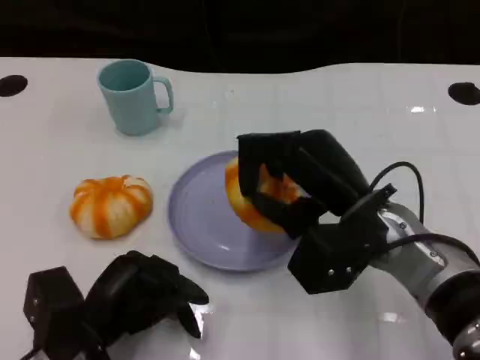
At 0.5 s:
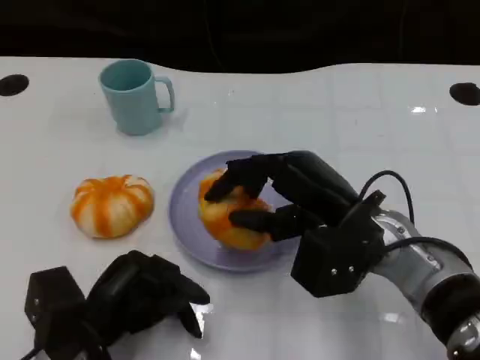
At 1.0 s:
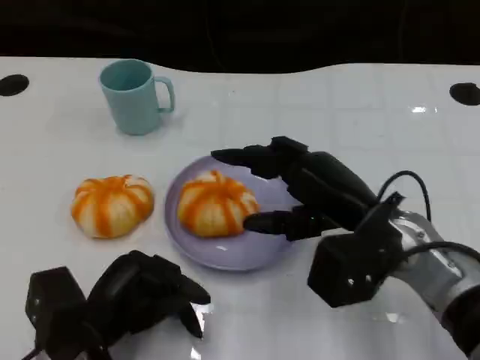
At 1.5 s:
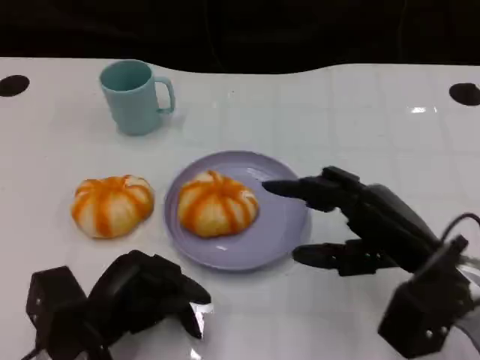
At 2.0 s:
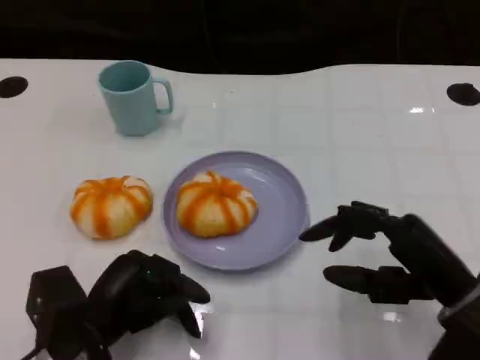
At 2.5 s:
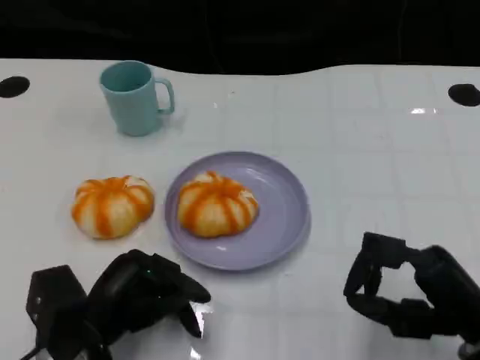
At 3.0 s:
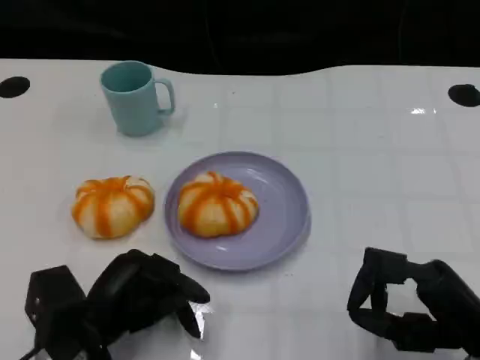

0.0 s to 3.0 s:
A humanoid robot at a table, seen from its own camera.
Task of the whole recording: Grasp the bread from the table and place it into the plate.
0.0 to 1.5 s: The right hand travels to the right by about 5 cm.
1.5 to 3.0 s: The right hand is displaced backward by some 5 cm.

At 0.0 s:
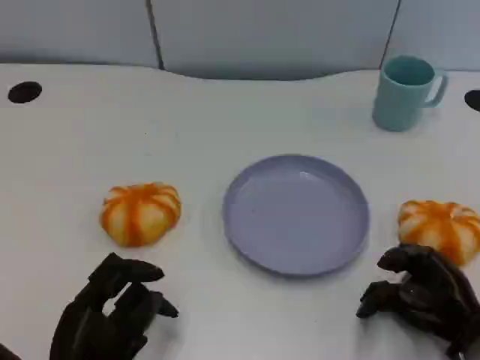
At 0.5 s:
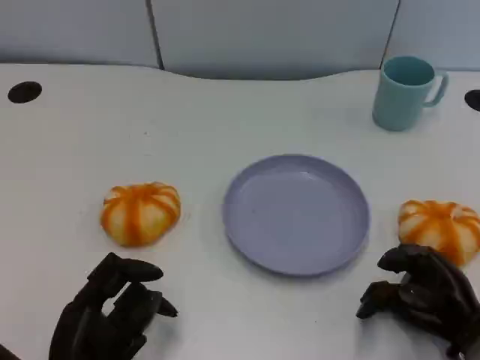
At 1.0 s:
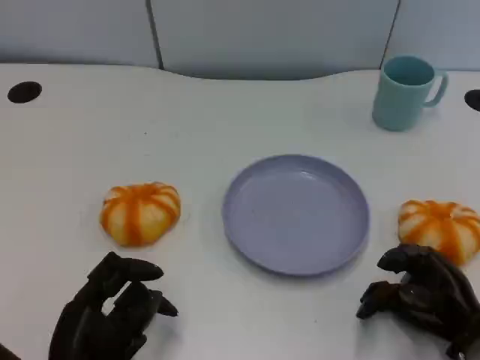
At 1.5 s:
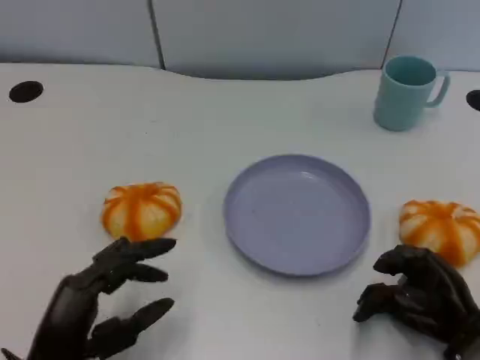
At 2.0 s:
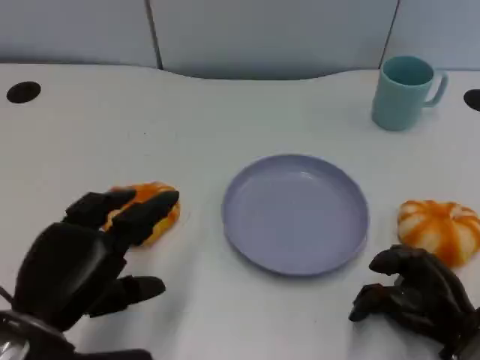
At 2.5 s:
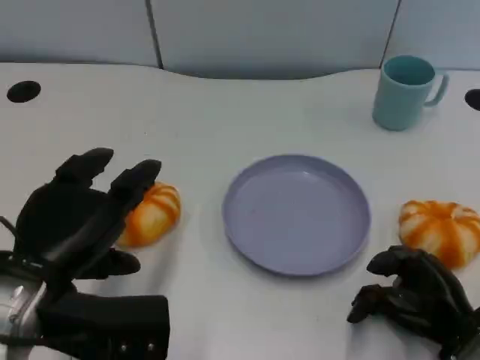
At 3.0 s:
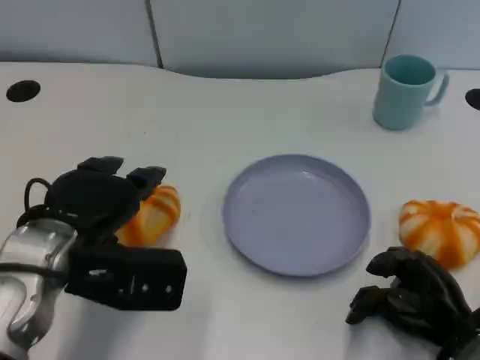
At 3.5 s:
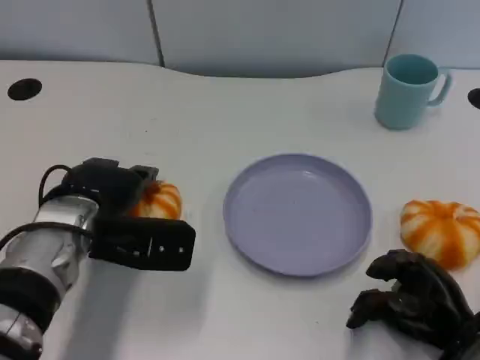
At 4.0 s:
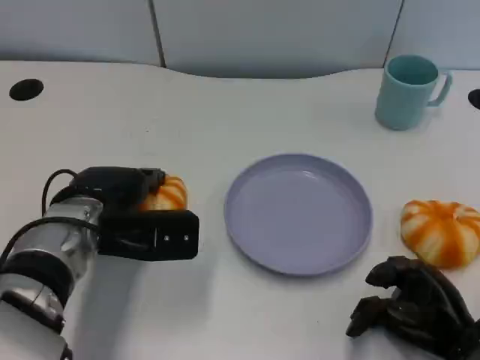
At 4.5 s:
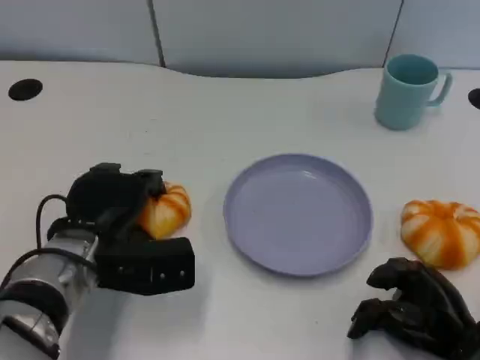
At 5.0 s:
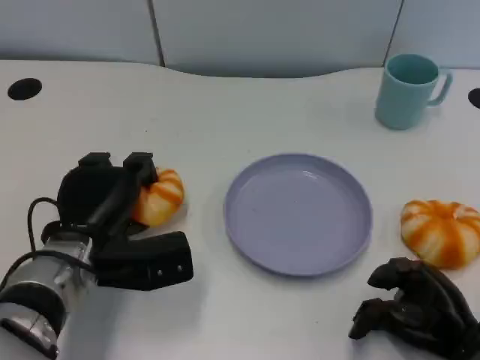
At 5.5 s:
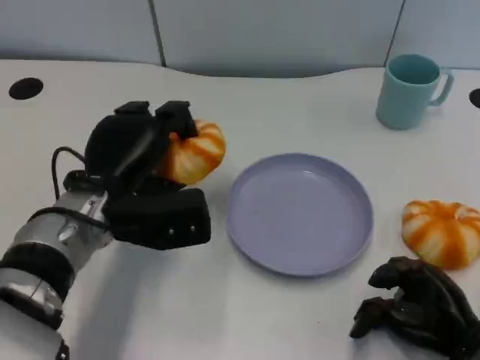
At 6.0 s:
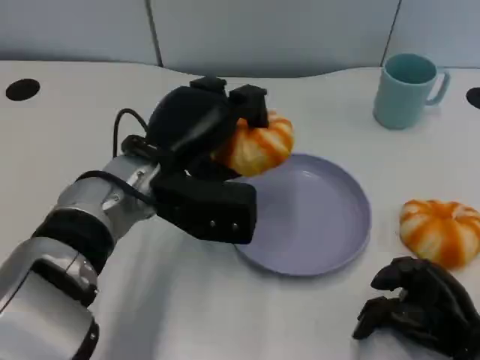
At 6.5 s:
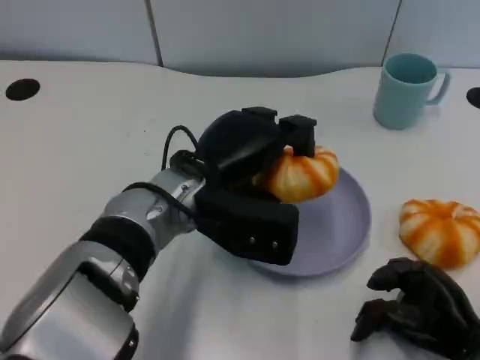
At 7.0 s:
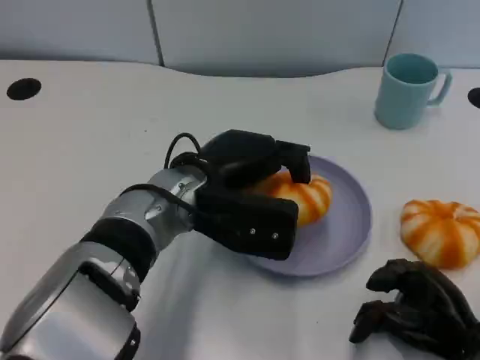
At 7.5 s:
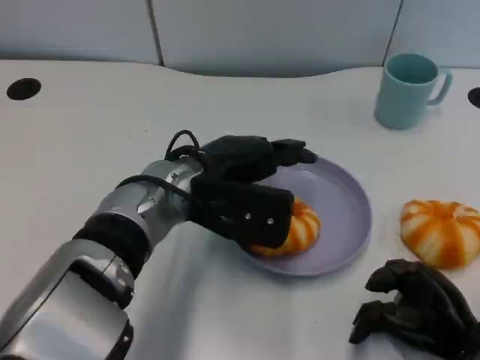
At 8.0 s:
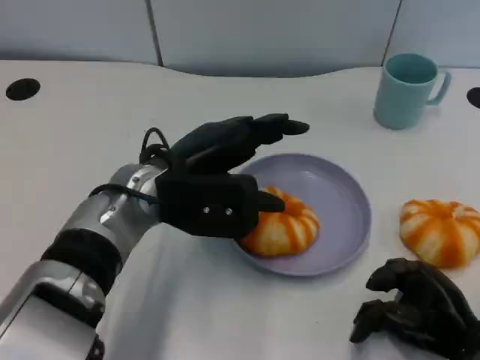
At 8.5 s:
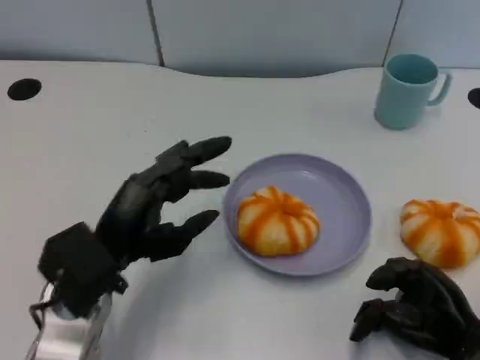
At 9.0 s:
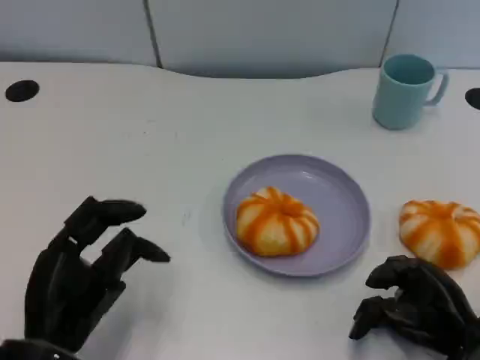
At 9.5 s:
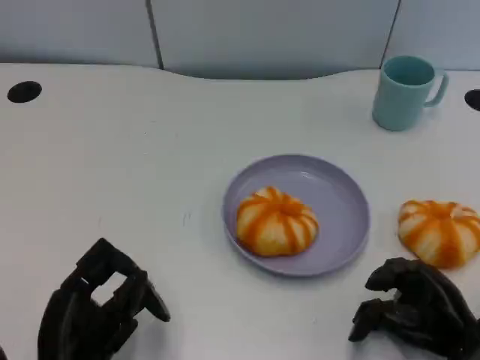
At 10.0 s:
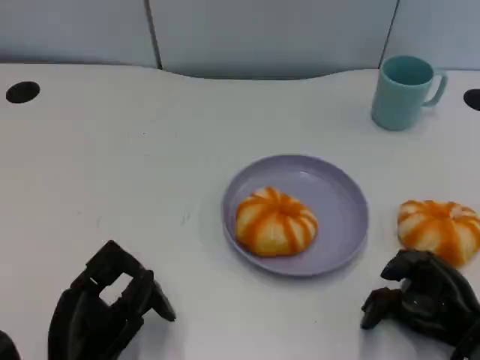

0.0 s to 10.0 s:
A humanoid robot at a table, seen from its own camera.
Task of the whole recording: Grasp the bread from the table and place it into the plate.
0.0 to 2.0 s: The left hand goes about 10 cm upward.
2.0 to 4.0 s: The left hand travels forward by approximately 15 cm.
4.0 to 6.0 s: The left hand shifts some 10 cm to the right and upward.
8.0 to 10.0 s: The left hand is displaced backward, downward and to the left by about 20 cm.

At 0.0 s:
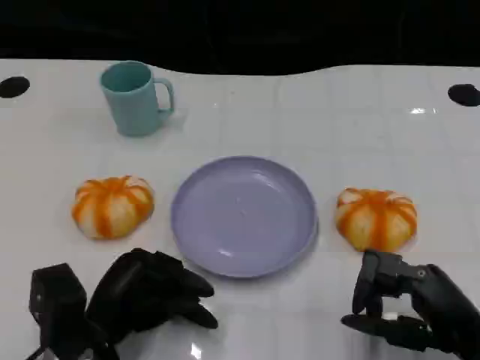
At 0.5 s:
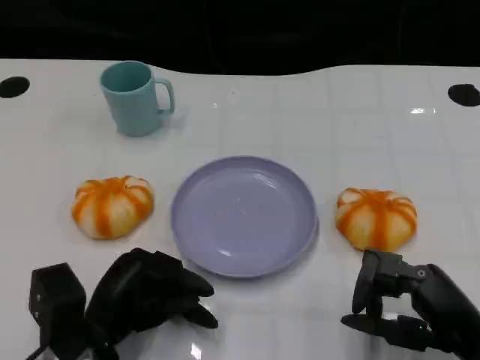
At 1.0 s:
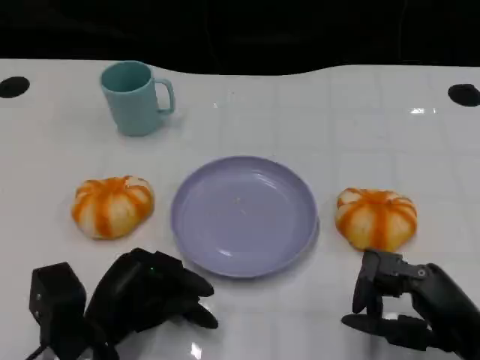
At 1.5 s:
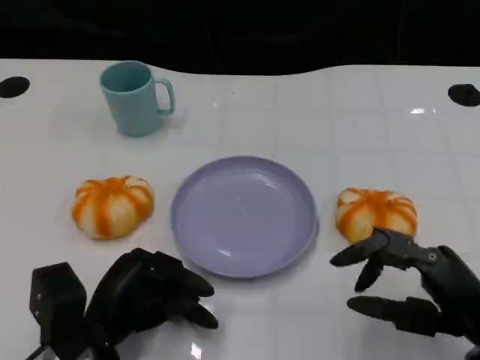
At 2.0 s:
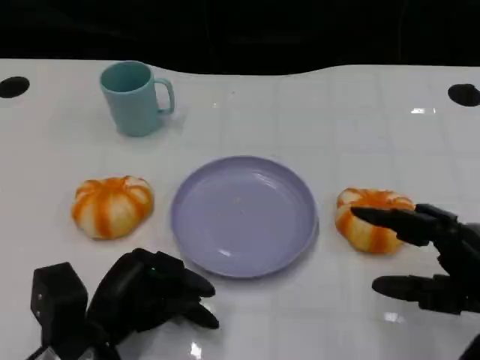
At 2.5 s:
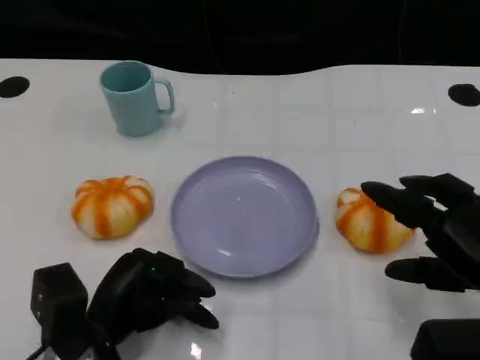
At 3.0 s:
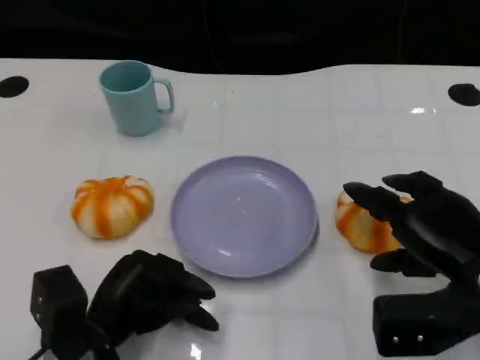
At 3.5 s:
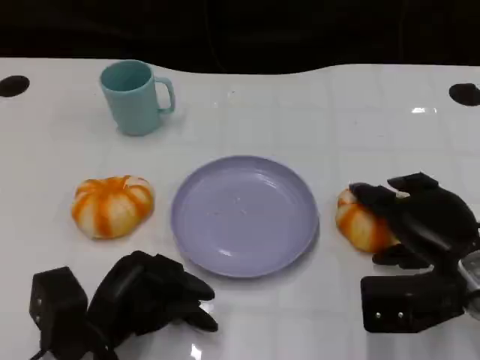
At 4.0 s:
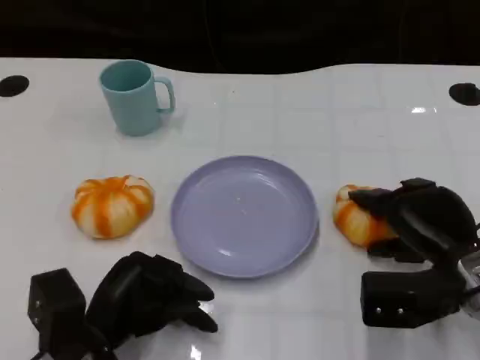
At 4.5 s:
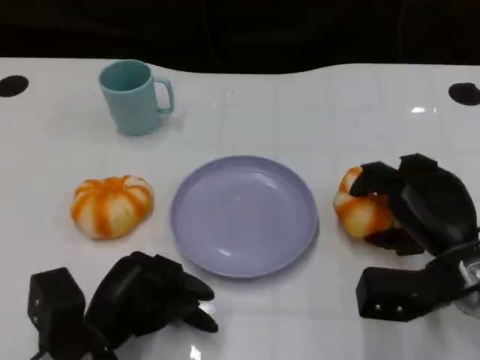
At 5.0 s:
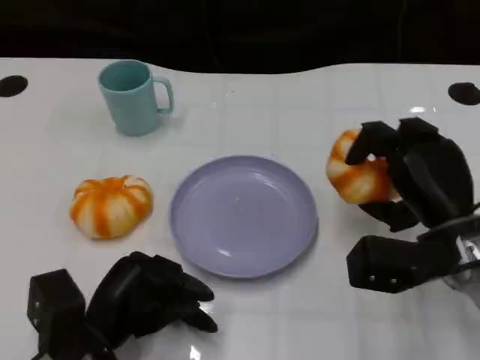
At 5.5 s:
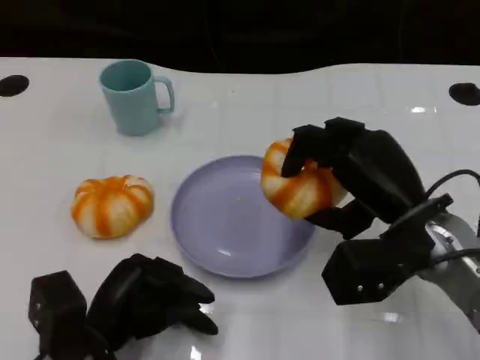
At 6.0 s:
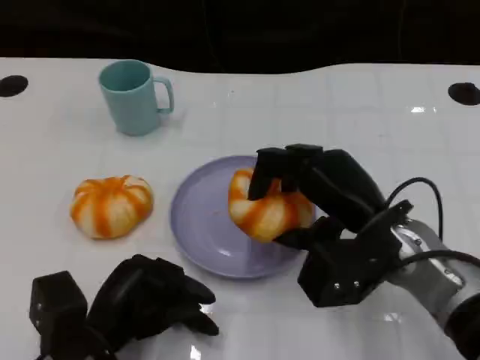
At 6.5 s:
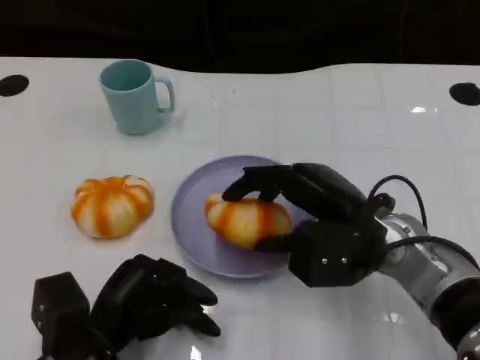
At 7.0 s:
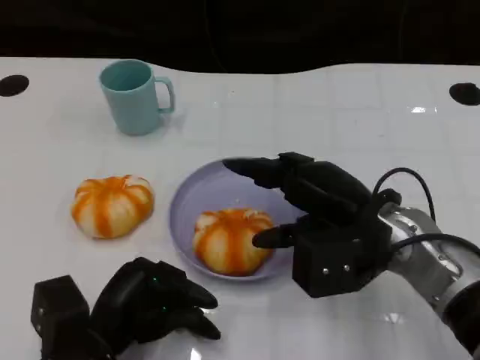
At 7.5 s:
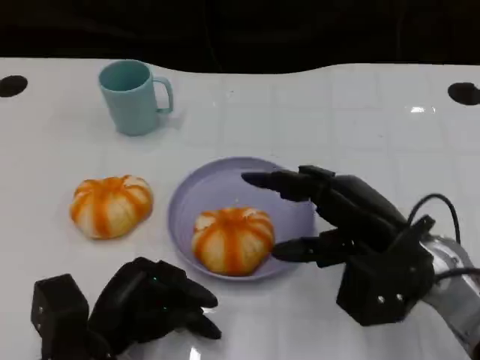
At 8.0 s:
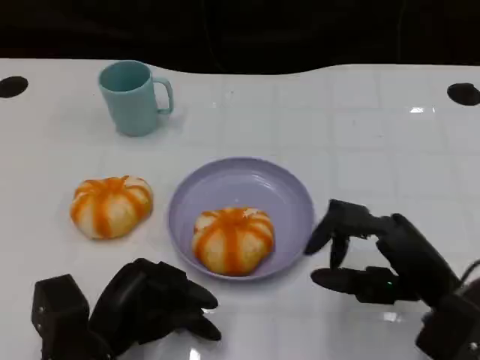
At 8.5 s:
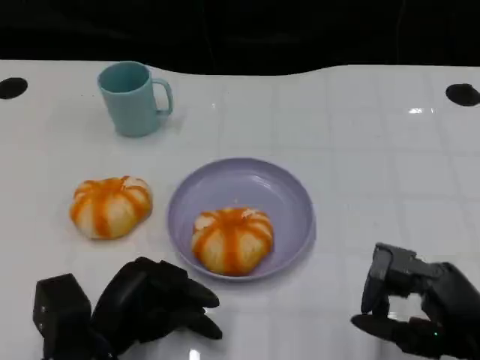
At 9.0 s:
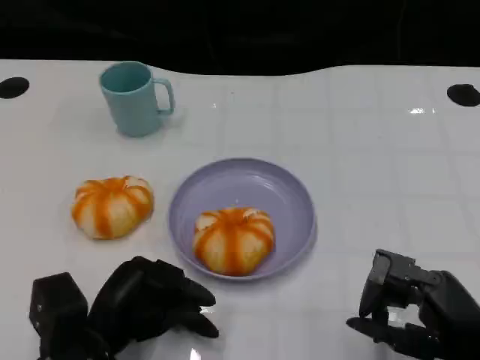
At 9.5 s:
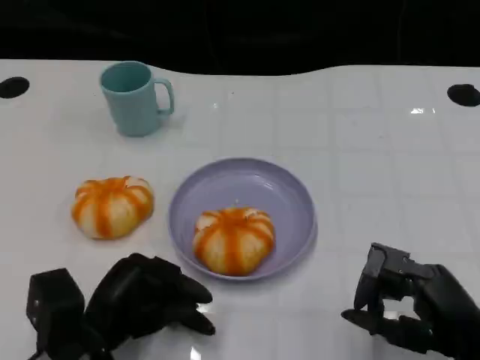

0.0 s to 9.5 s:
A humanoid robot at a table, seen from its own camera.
Task of the whole recording: Grasp the bread from the table and place it into the plate.
0.0 to 2.0 s: The right hand heads upward, covering about 5 cm.
2.0 to 4.0 s: The right hand shifts approximately 10 cm forward.
4.0 to 5.5 s: The right hand shifts approximately 10 cm upward and to the left.
7.5 to 9.5 s: The right hand moves backward and to the right, about 10 cm.

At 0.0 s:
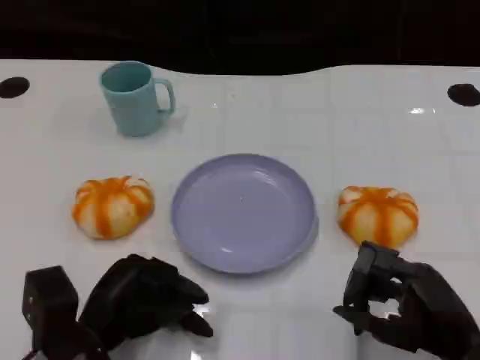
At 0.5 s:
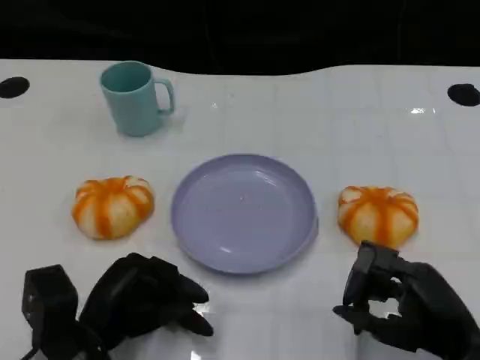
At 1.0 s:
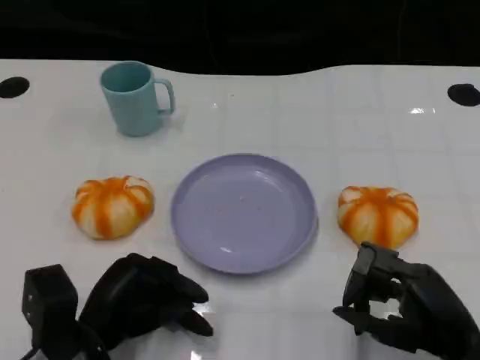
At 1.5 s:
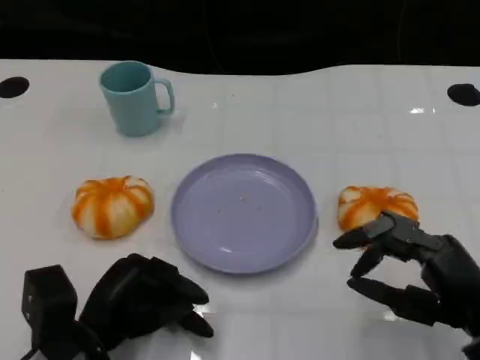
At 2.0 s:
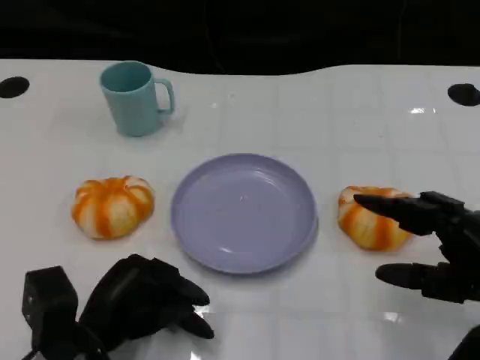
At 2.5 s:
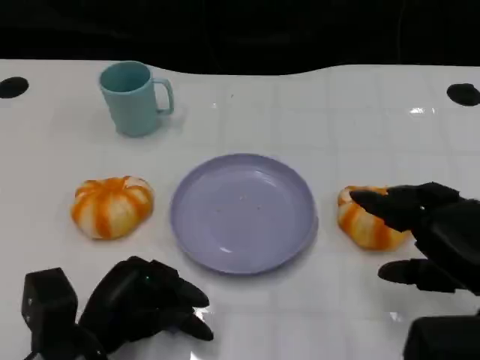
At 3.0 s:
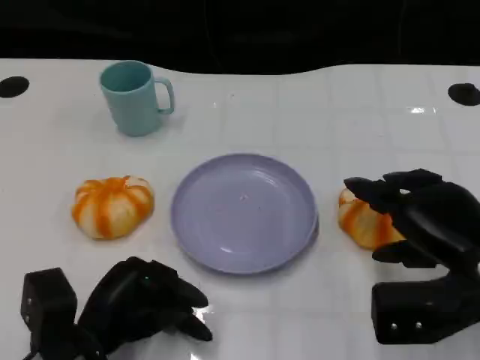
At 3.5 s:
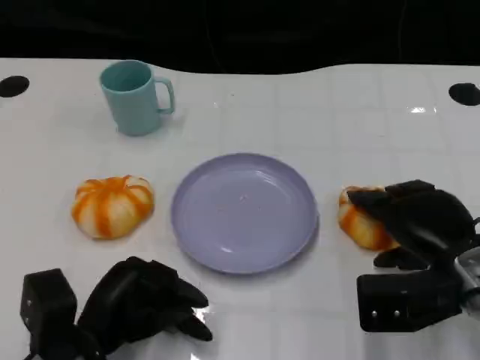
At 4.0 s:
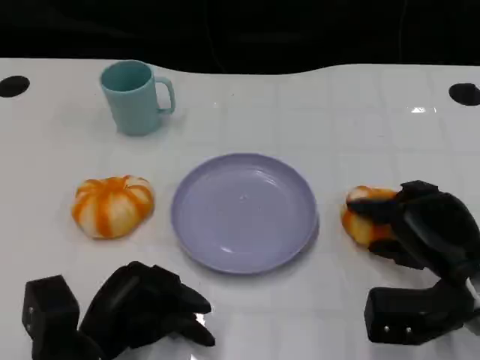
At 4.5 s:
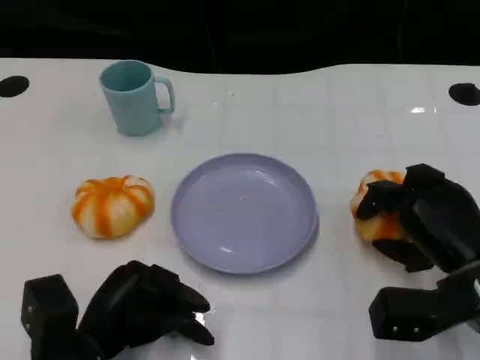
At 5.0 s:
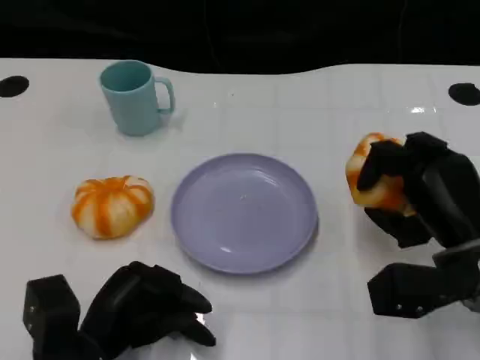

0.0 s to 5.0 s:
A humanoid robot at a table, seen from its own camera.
Task of the whole recording: Grasp the bread from the table and place it into the plate.
0.0 to 2.5 s: The right hand moves upward, some 5 cm.
2.5 to 5.0 s: The right hand is displaced forward by approximately 5 cm.
